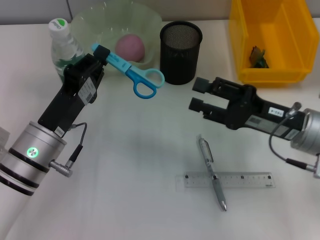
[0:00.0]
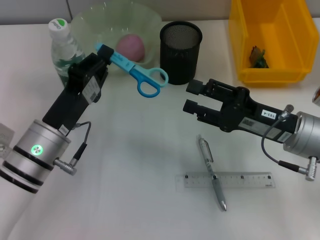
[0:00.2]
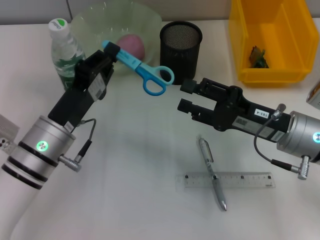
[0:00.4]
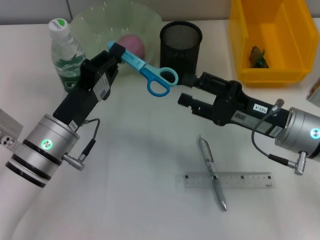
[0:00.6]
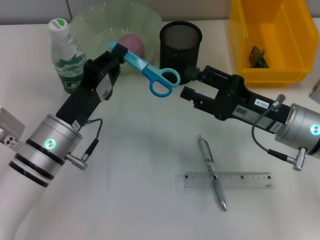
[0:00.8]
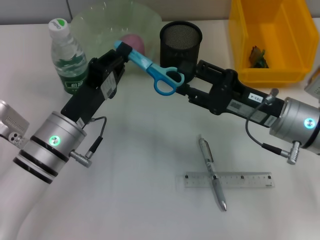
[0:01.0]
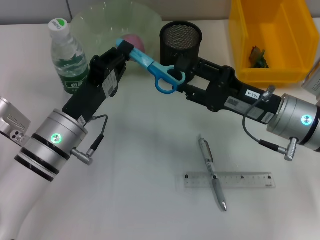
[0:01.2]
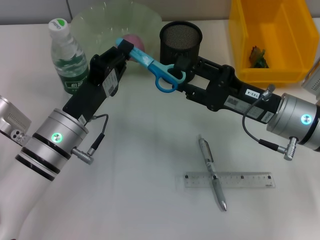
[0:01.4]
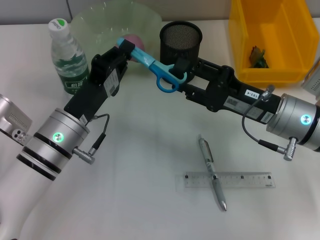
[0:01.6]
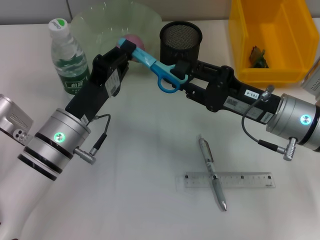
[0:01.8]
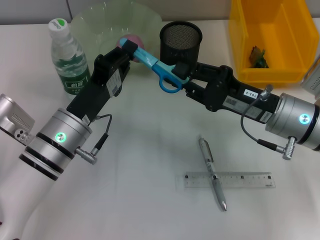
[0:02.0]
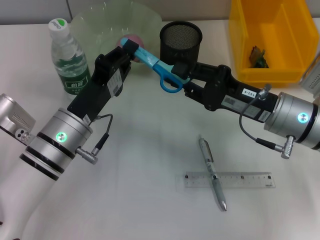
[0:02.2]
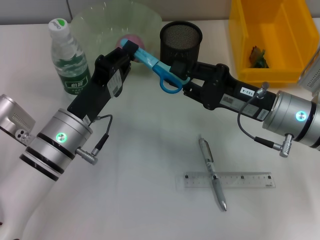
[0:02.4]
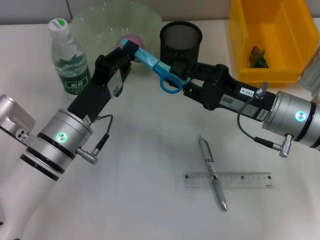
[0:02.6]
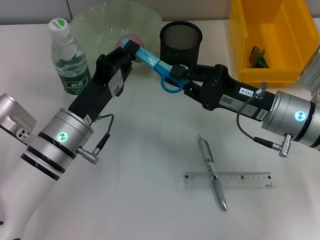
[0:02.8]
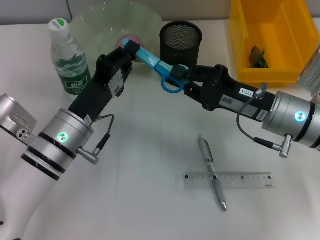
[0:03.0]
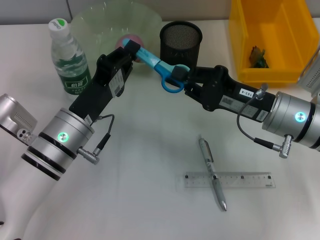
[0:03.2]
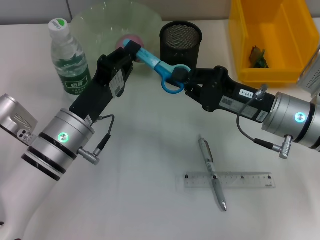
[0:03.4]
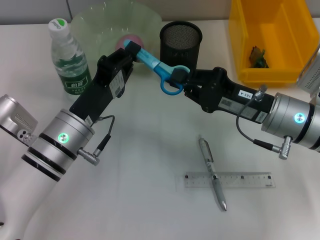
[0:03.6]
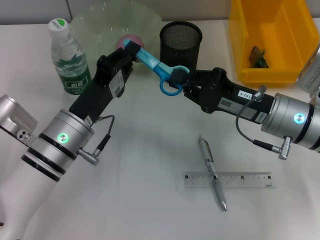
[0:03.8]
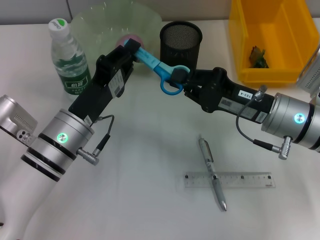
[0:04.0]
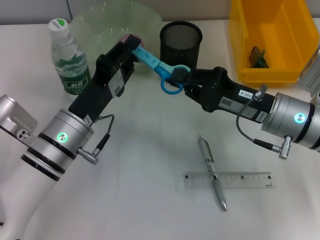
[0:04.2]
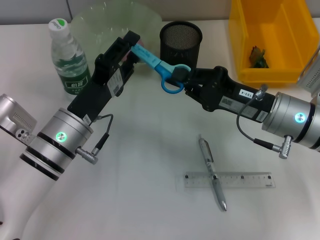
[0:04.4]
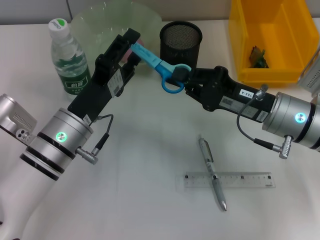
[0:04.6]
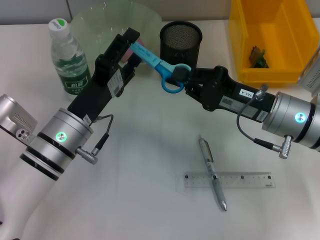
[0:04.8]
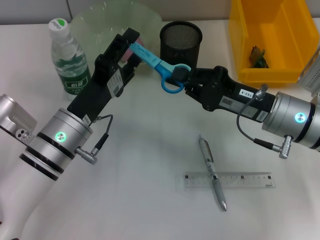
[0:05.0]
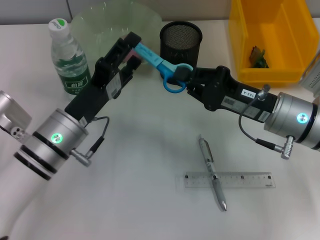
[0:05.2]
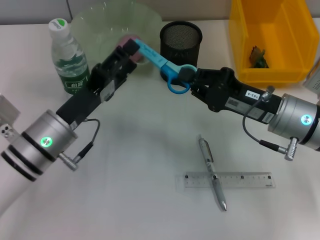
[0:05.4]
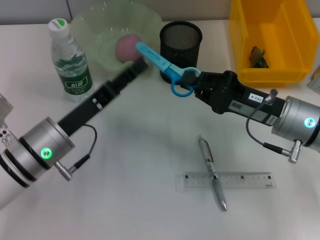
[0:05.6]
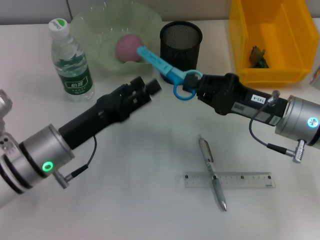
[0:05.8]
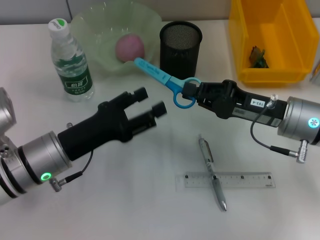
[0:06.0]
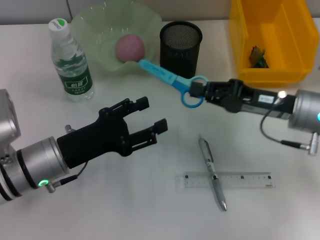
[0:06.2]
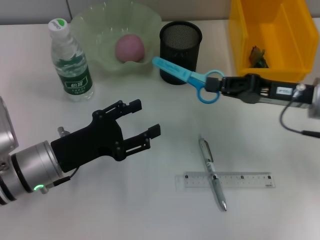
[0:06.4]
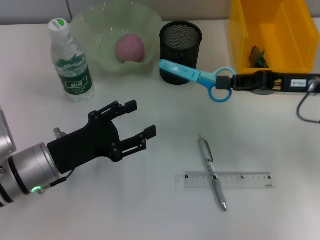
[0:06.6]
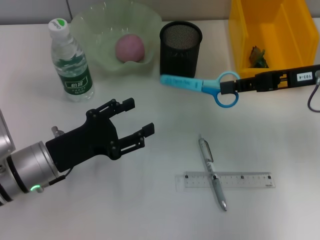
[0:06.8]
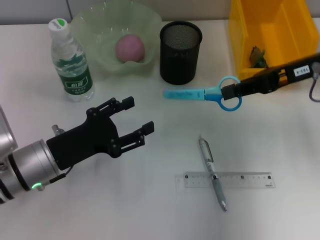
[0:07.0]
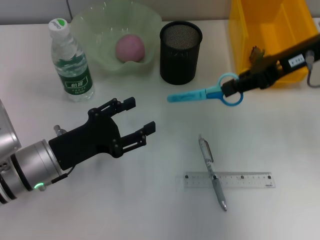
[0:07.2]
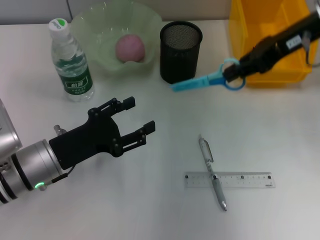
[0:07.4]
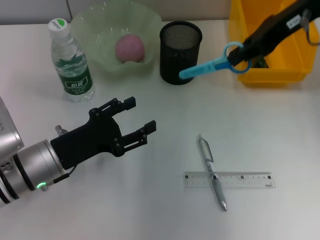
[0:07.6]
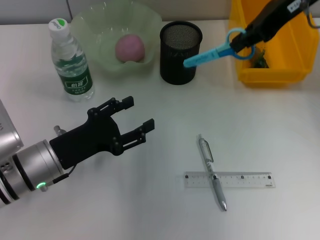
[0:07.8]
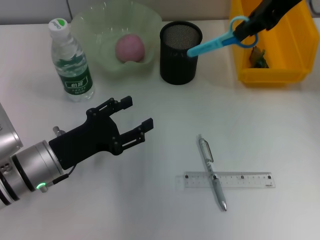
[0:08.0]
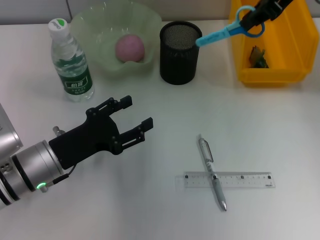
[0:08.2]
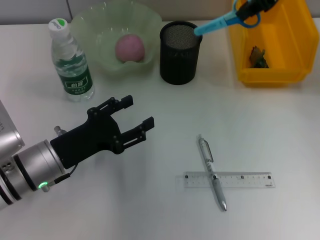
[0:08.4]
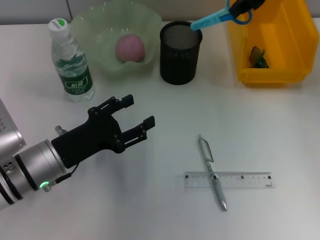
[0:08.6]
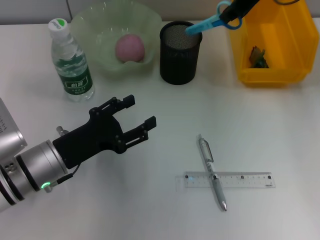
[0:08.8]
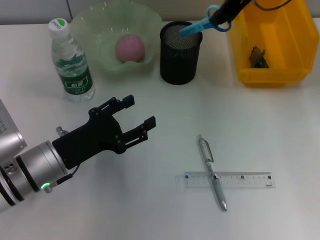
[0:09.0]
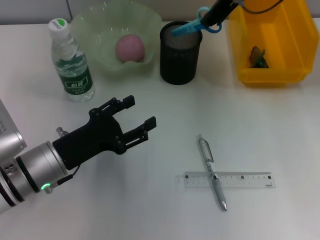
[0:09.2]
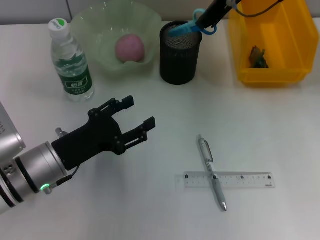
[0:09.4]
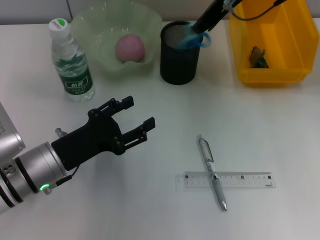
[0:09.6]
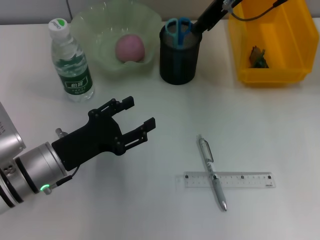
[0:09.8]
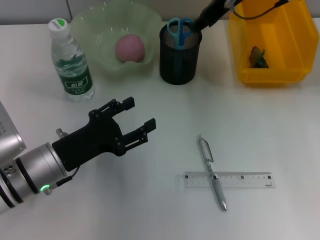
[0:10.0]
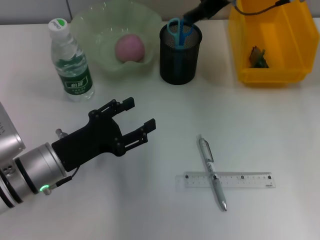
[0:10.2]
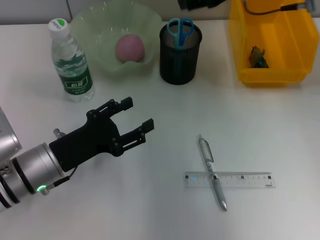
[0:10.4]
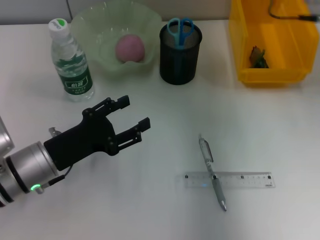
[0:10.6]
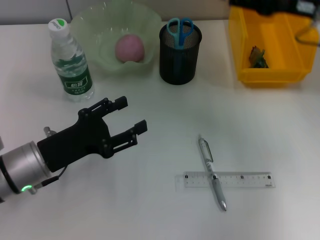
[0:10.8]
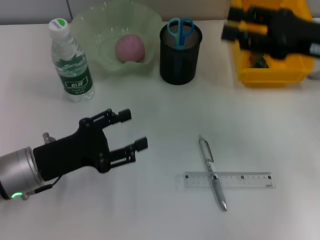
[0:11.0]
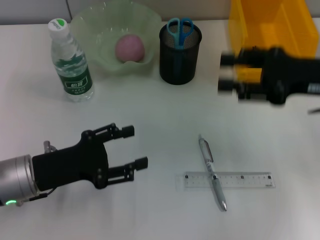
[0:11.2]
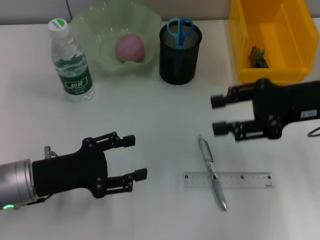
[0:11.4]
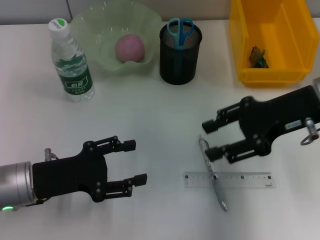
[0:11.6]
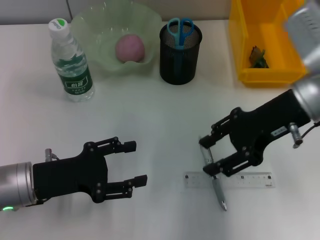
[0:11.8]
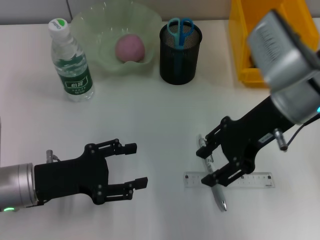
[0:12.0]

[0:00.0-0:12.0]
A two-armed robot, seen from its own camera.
Step, 0:00.0 to 0:04.0: Pass the blue scissors from the left hand to the right hand.
Step, 0:04.2 to 0:09.6: Place the blue scissors into the pen holder with the right hand.
0:01.6 to 0:03.0: The right gripper closes its fingers.
0:03.0 to 0:04.4: Both grippers stay about where they are.
0:04.4 to 0:06.0: The left gripper opens its fingers.
0:06.0 to 0:07.6: The right gripper travels upward and forward by some 20 cm.
0:07.6 to 0:09.0: The right gripper is displaced to the left by some 5 cm.
0:09.0 to 0:10.4: The right gripper opens.
0:10.4 to 0:12.0: The right gripper is displaced backward and downward by some 15 cm.

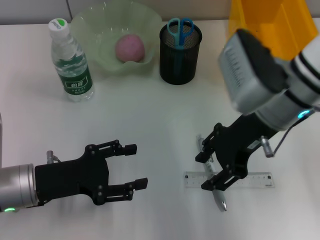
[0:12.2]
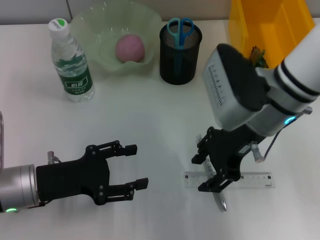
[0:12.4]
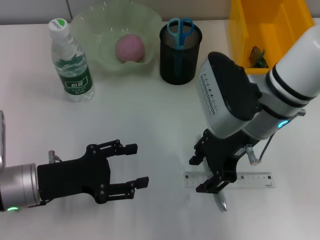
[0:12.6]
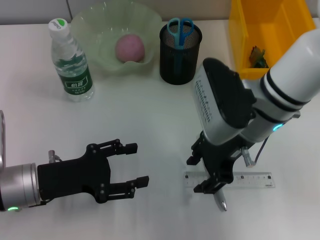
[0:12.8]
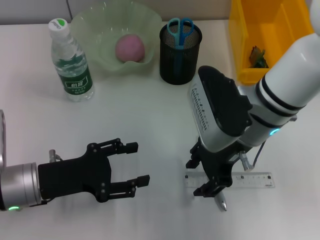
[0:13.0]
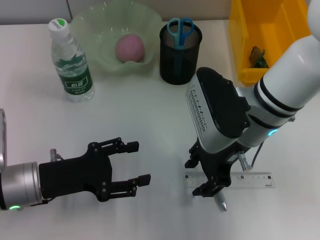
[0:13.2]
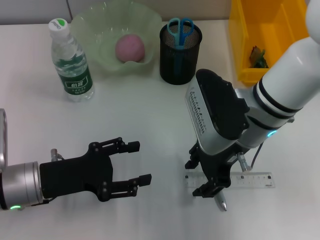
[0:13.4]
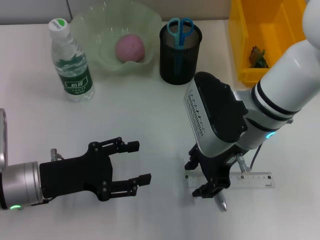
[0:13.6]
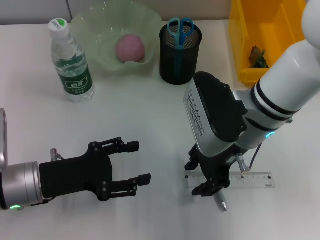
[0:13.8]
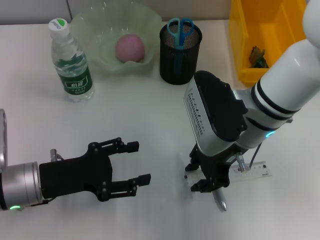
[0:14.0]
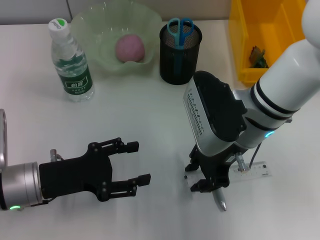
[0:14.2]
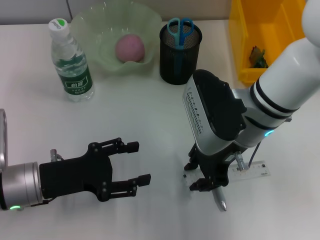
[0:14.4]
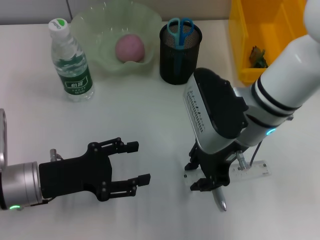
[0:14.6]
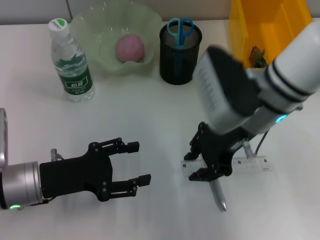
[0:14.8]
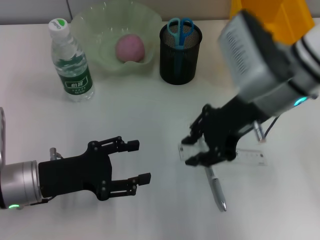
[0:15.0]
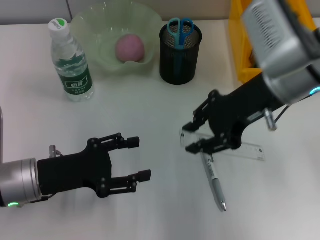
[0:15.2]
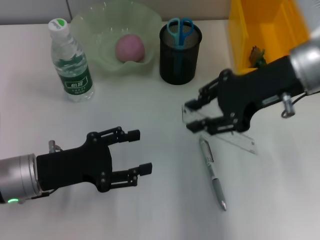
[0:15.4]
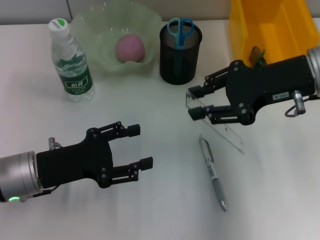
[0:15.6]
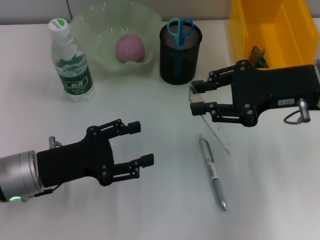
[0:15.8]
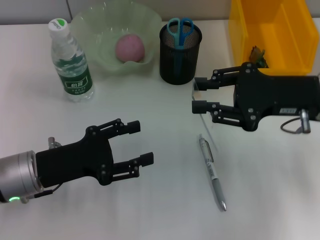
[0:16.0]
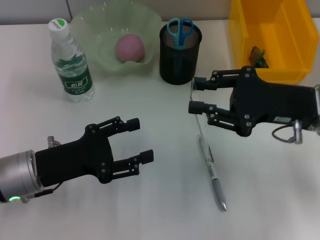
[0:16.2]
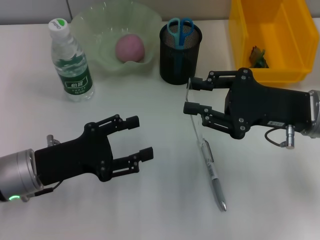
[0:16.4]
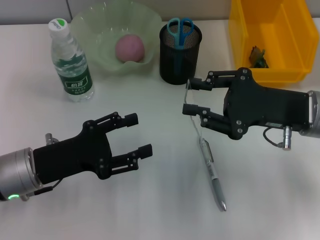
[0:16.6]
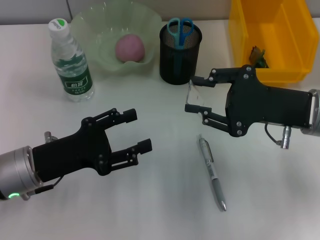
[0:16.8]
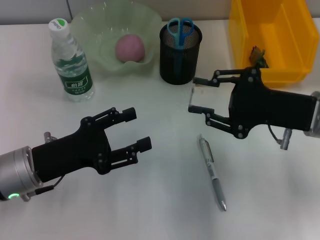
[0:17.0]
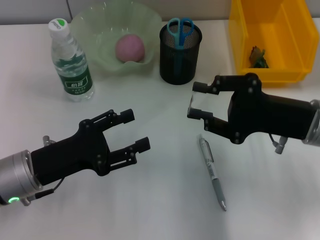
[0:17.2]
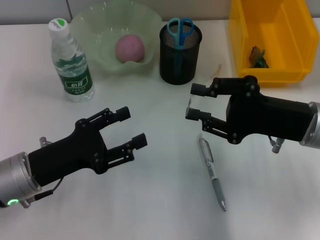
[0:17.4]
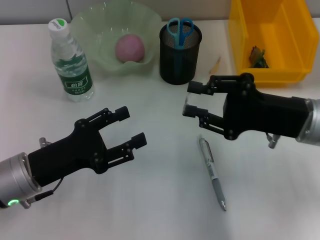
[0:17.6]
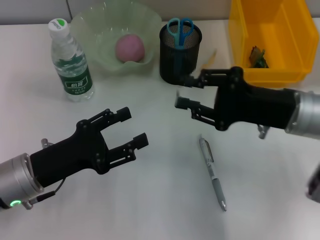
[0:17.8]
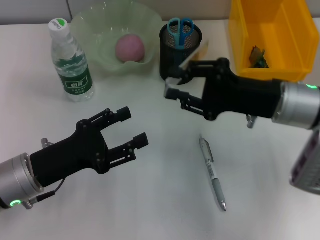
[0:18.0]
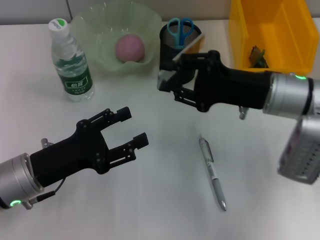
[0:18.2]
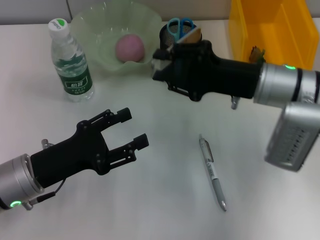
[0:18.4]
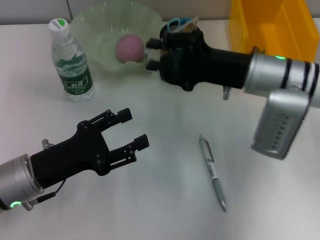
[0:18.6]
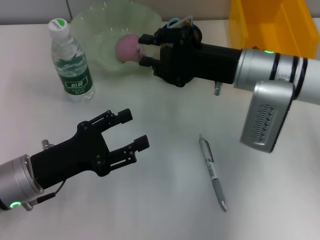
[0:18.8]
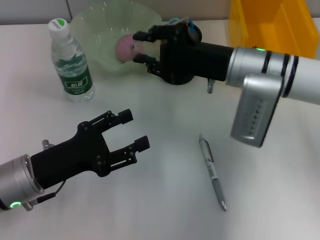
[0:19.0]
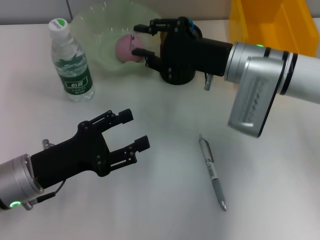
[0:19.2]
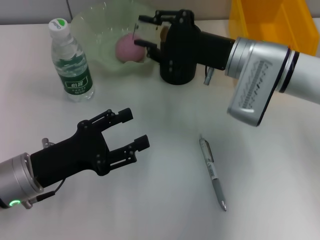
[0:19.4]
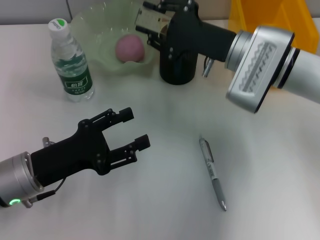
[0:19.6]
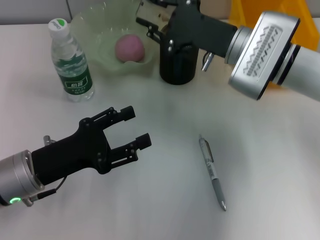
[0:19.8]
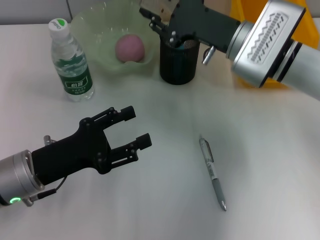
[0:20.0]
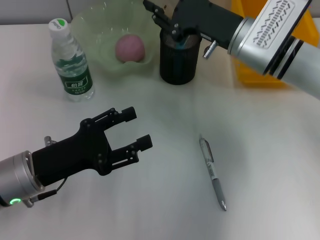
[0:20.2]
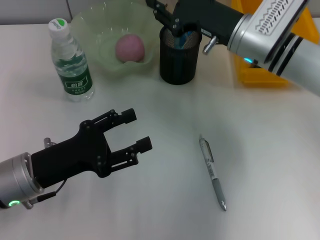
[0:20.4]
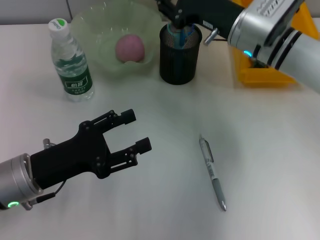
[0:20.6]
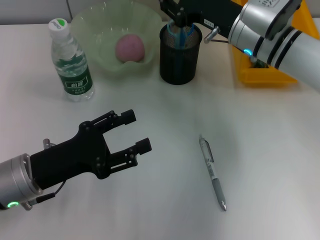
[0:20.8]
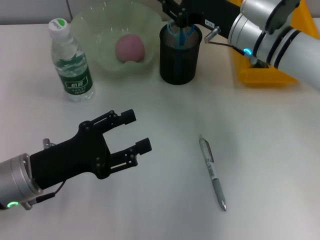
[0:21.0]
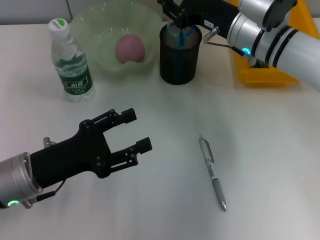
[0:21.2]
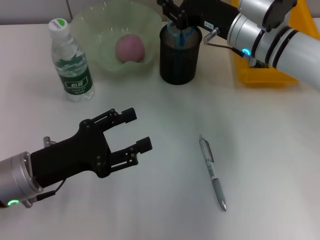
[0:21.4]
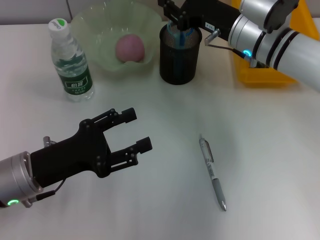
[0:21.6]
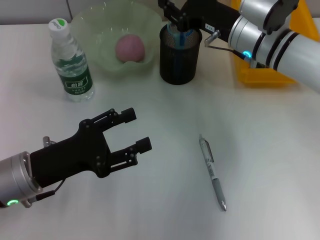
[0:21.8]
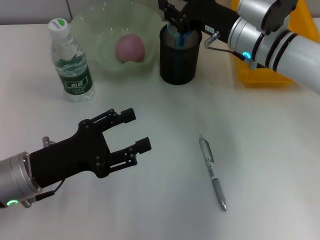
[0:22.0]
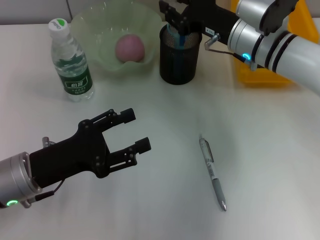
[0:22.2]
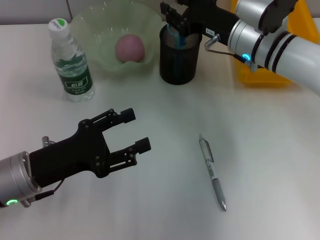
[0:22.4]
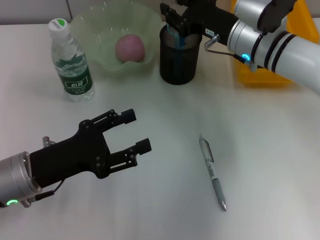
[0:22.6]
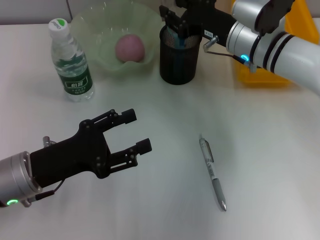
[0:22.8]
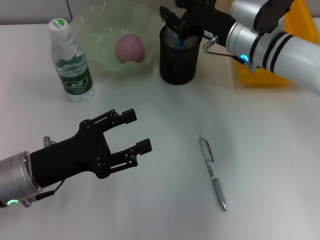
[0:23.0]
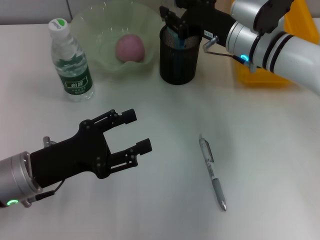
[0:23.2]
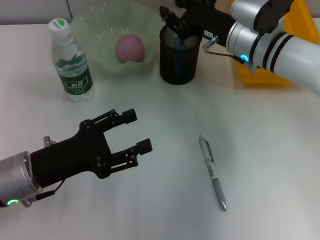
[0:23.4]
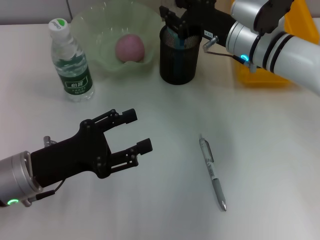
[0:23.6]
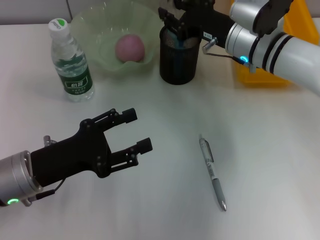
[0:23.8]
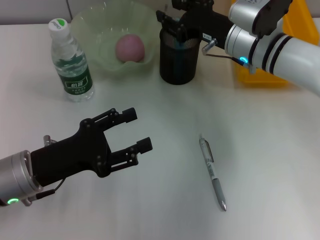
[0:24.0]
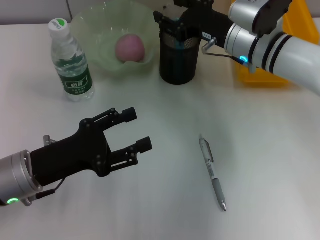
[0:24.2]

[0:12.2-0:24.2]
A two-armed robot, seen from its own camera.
Step, 0:12.2 to 0:14.2: Grab the ruler with the right hand.
Step, 0:14.6 to 0:24.2: Place the ruler into the pen holder with the right hand.
0:12.2 to 0:13.8: The right gripper ends up approximately 5 cm from where it was.
0:13.8 to 0:15.2: The right gripper goes about 10 cm upward and to the right.
0:15.2 to 0:16.6: The right gripper heads downward and to the right, covering some 10 cm.
0:16.6 to 0:18.2: The right gripper ends up about 5 cm from where it was.
0:18.2 to 0:19.8: The right gripper is displaced forward by about 5 cm.
0:21.2 to 0:22.6: The two grippers keep their place.
0:22.6 to 0:24.2: The two grippers keep their place.
